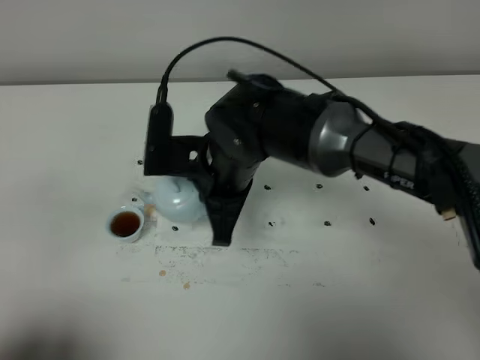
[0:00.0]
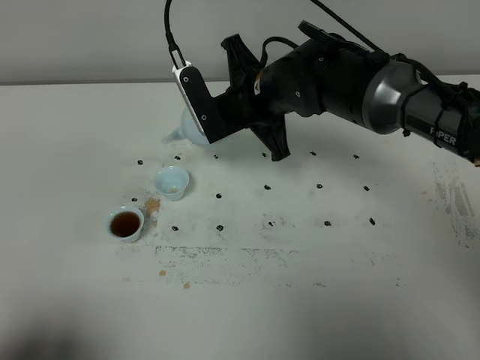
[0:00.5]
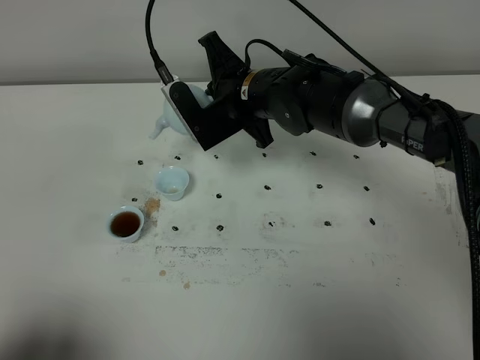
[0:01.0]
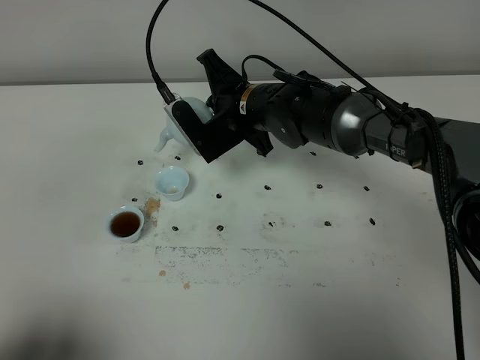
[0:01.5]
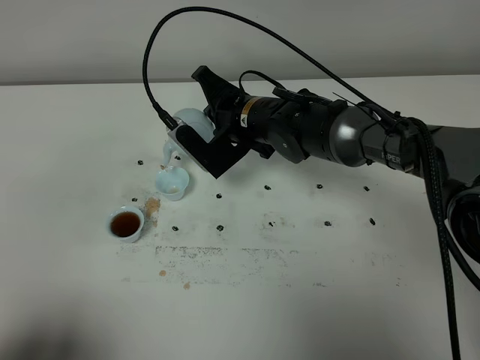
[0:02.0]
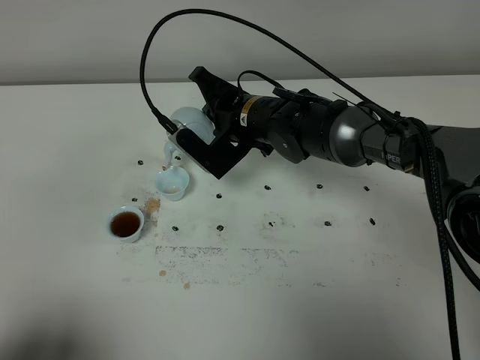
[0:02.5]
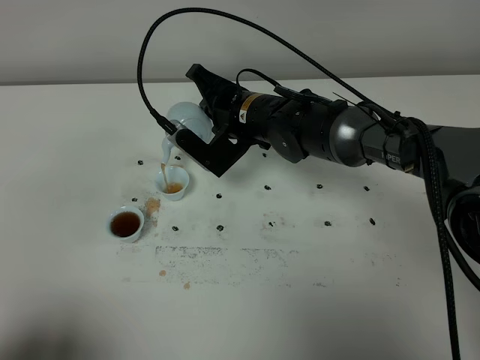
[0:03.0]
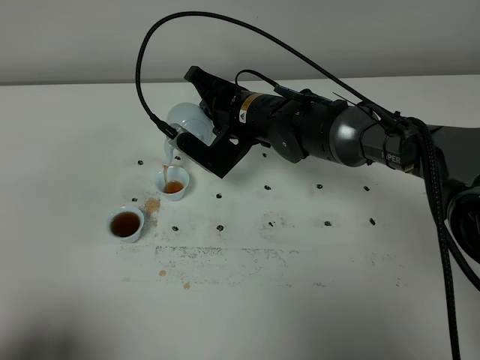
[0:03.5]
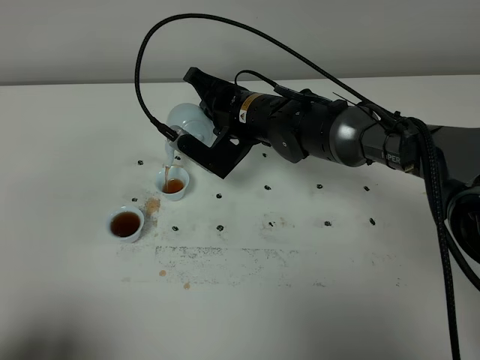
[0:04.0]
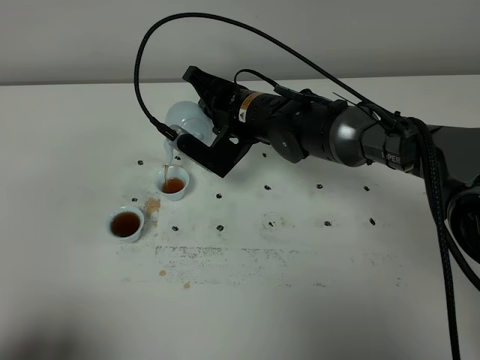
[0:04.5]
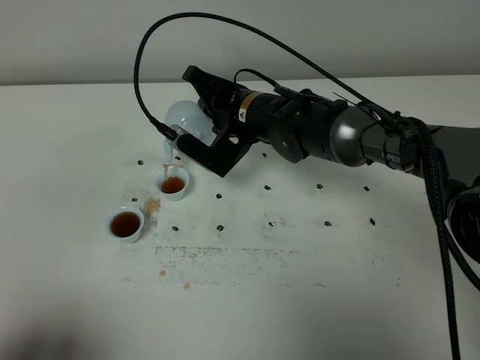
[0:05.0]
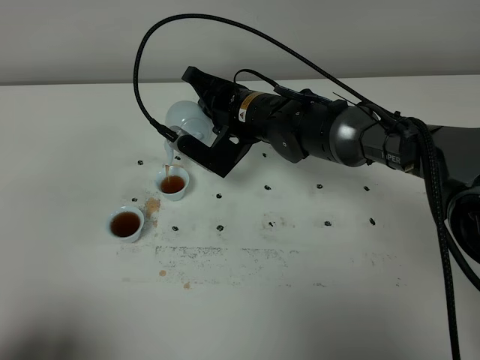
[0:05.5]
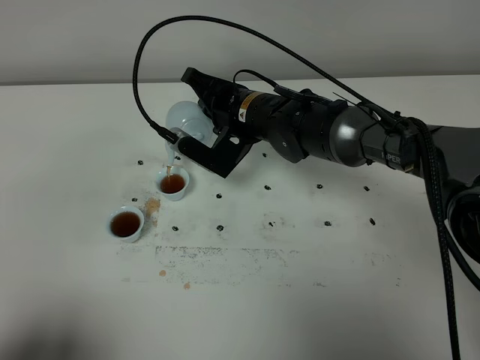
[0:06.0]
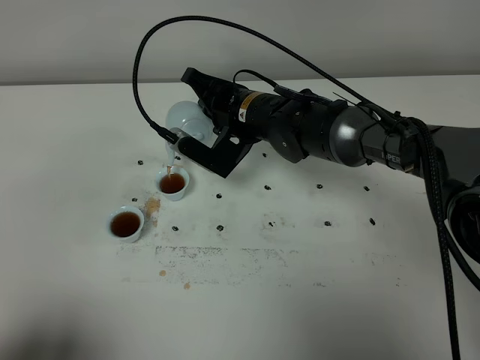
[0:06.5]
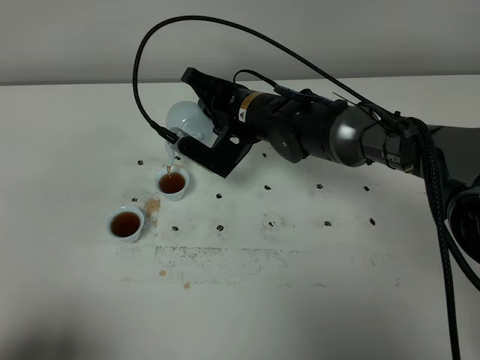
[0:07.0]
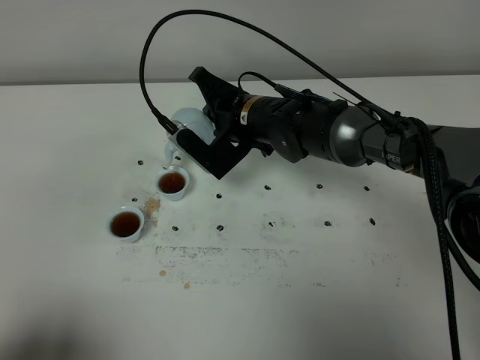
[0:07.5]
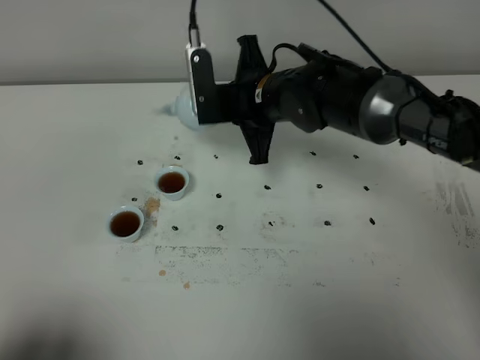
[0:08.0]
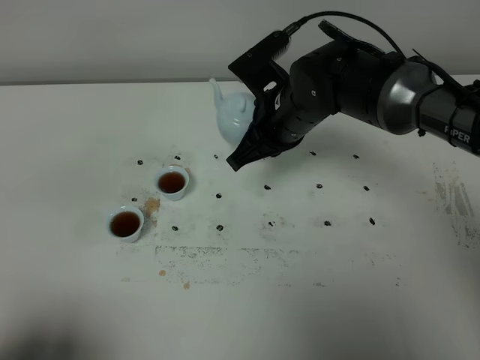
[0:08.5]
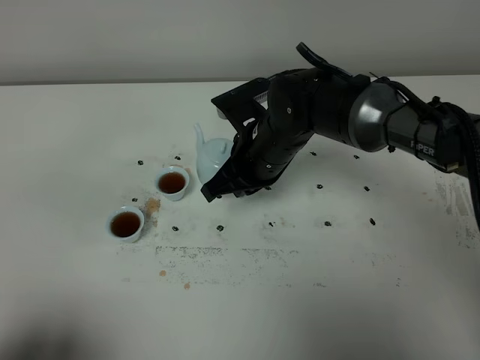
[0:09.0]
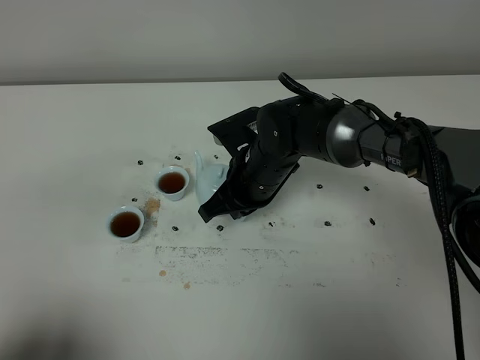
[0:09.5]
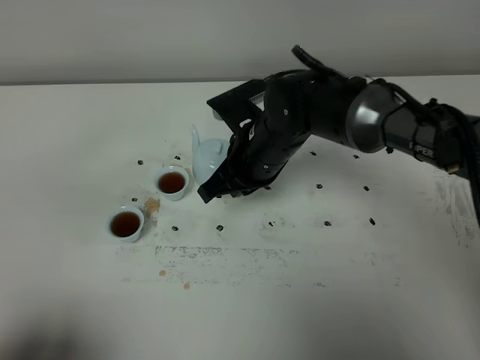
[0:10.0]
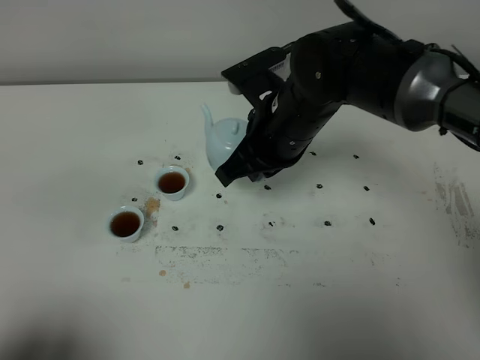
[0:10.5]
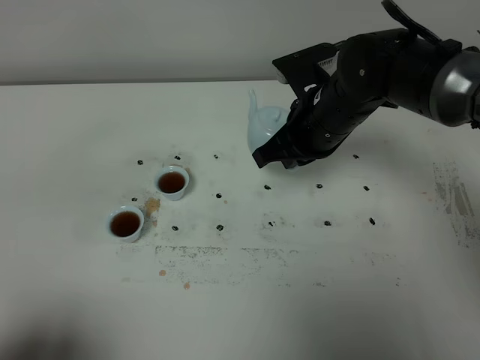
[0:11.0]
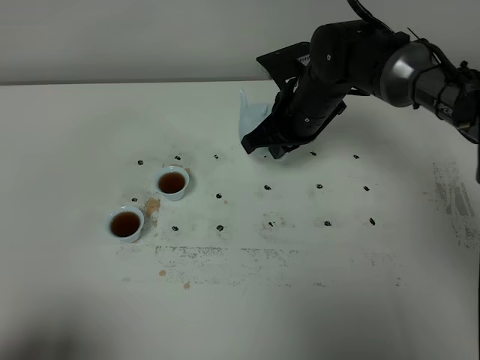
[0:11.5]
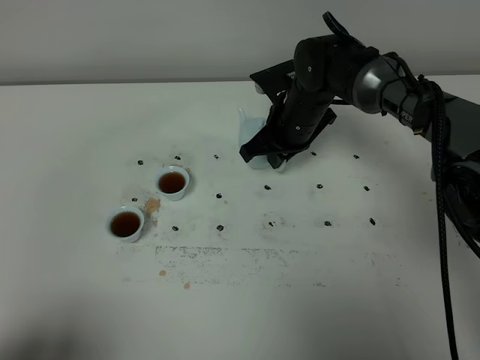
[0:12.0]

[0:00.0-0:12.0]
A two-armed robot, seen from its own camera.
Task of the whole recording: grasp the blue porcelain teapot and pour the tea into the two blue porcelain teacups one by one, put the blue porcelain teapot back in its original place.
Step, 0:00.0 to 0:07.5: Pour tea into the teacup with the right gripper.
0:00.0 to 0:02.0: The right gripper travels forward by about 10 cm.
0:02.0 to 0:04.0: The grippers move only a little.
0:04.0 to 0:06.0: Neither gripper changes place.
0:06.0 to 0:08.0: The right gripper shifts by about 5 cm.
0:10.0 to 0:12.0: The right gripper is displaced forward and to the right by about 10 cm.

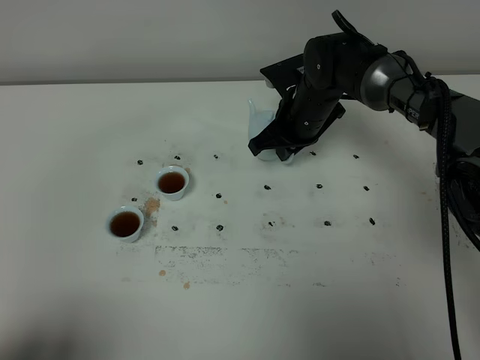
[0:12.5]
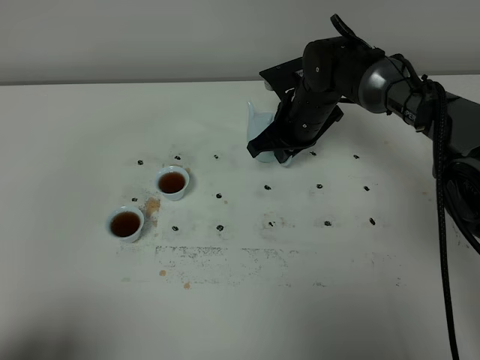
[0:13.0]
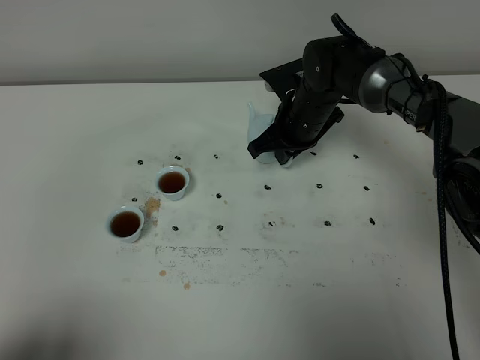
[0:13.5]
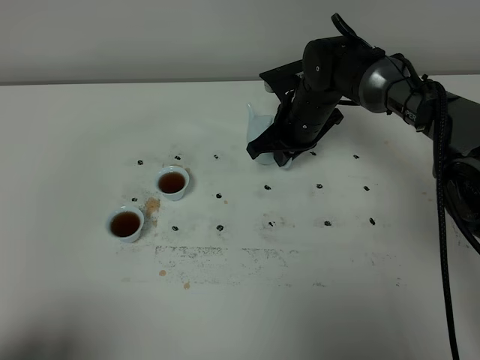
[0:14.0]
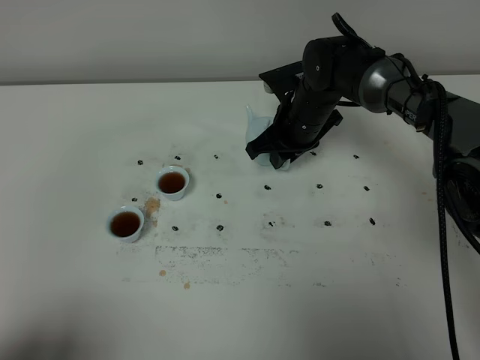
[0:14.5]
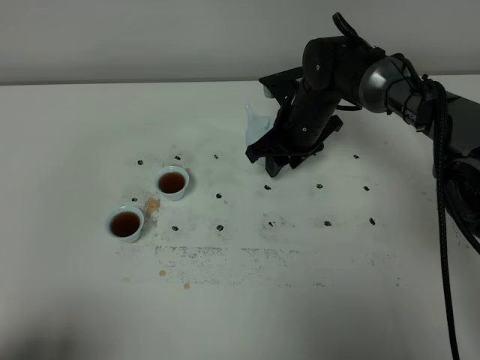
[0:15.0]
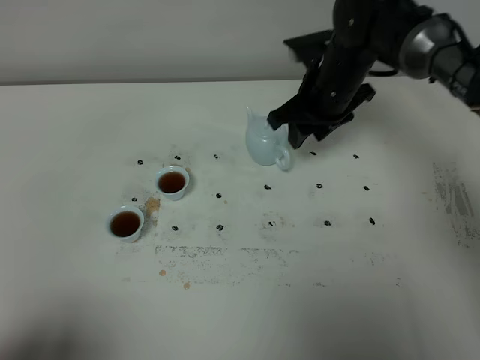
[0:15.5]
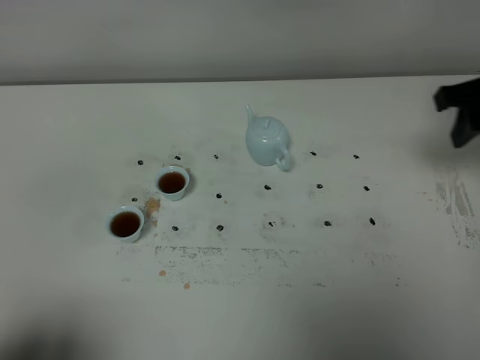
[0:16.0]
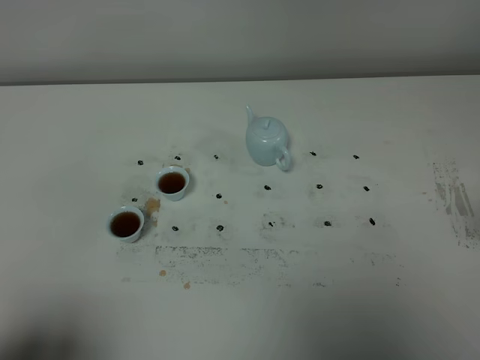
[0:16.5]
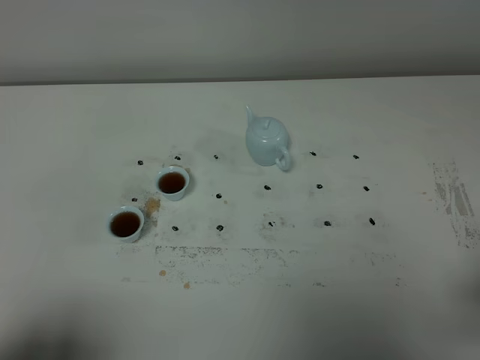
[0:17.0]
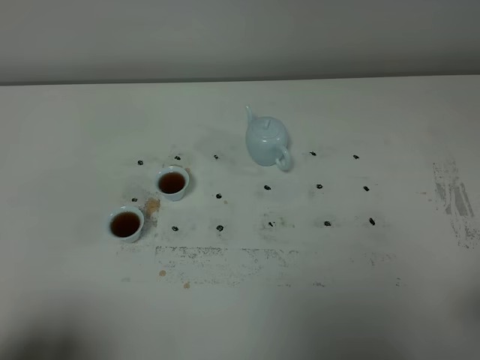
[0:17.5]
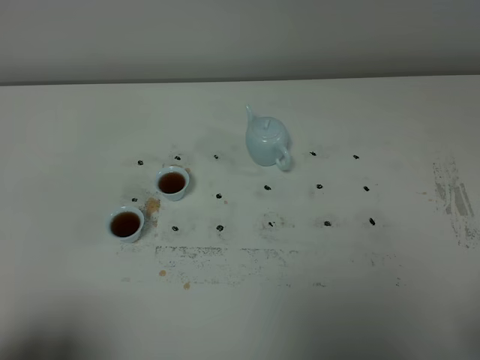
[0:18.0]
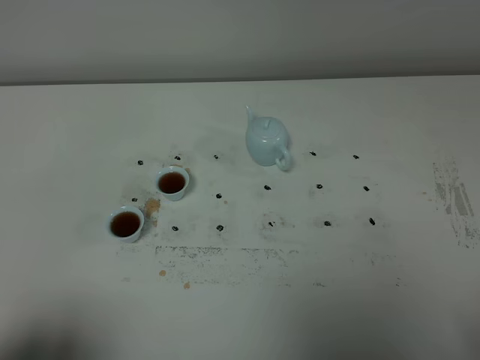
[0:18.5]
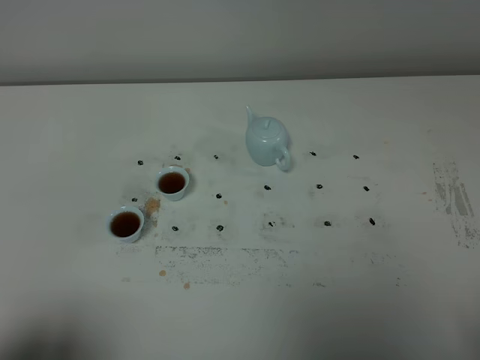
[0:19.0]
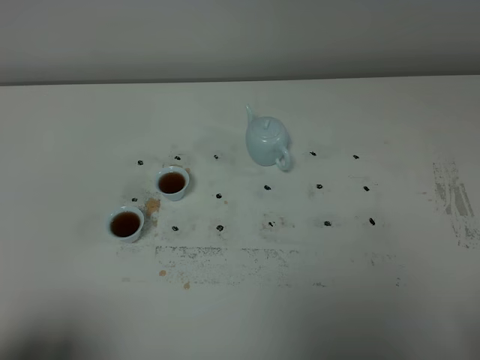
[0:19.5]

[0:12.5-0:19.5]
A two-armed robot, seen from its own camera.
Task of the whole recording: grasp the blue porcelain teapot and pour the tea into the two blue porcelain teacups one by one, put the blue porcelain teapot back in its original place.
0:12.5 to 0:14.5: The right gripper opens its fingers.
0:14.5 to 0:16.0: The right gripper heads to the right, upward and backward, covering some 30 cm.
0:16.0 to 0:17.5: The right gripper is displaced backward by roughly 30 cm.
